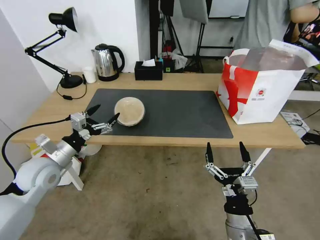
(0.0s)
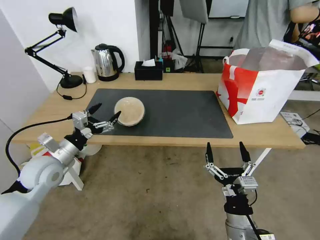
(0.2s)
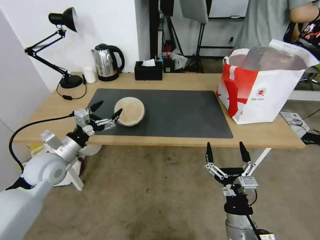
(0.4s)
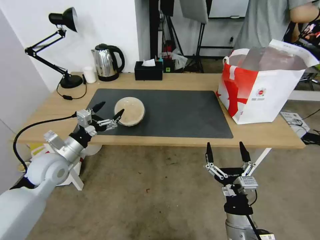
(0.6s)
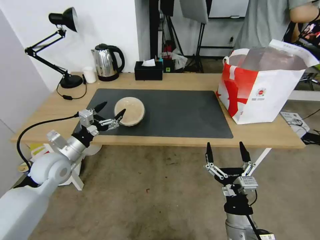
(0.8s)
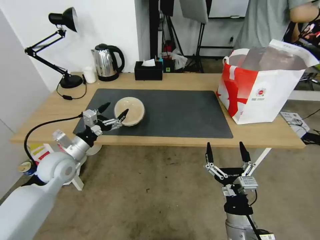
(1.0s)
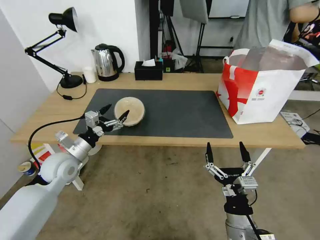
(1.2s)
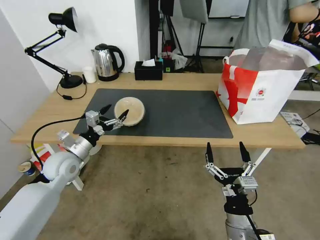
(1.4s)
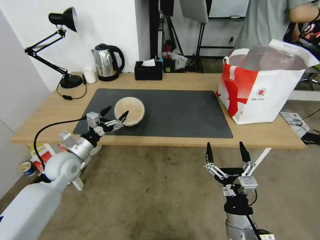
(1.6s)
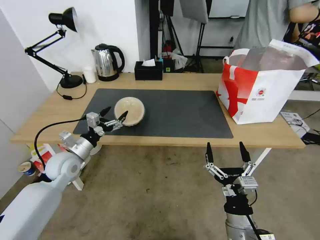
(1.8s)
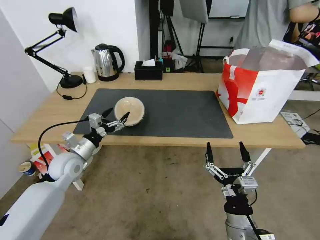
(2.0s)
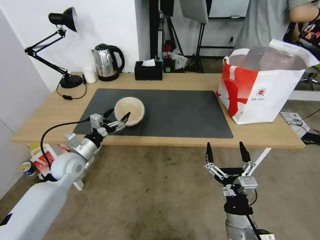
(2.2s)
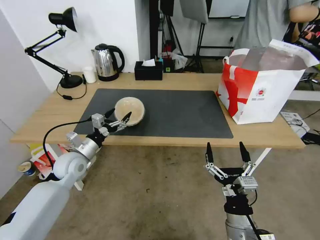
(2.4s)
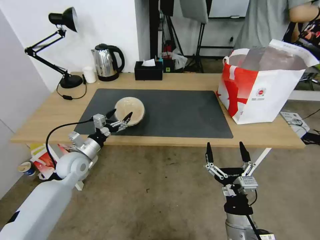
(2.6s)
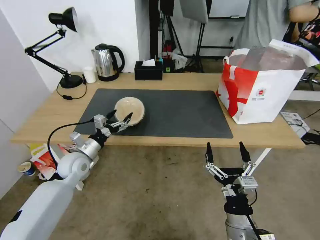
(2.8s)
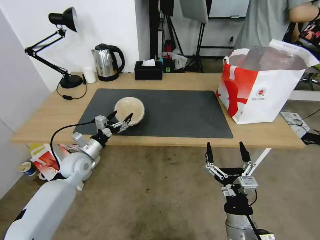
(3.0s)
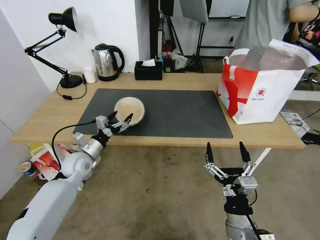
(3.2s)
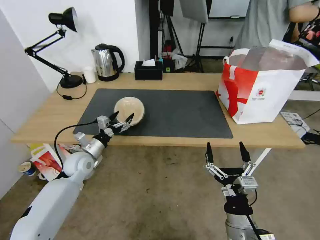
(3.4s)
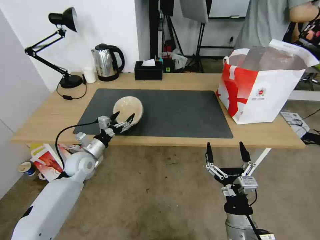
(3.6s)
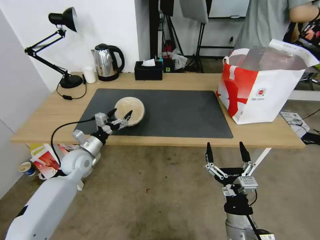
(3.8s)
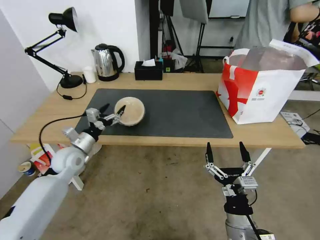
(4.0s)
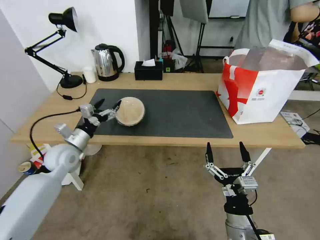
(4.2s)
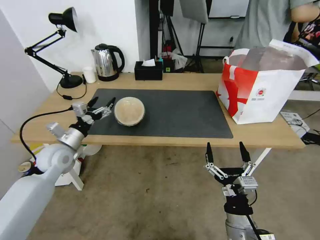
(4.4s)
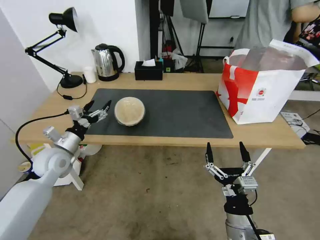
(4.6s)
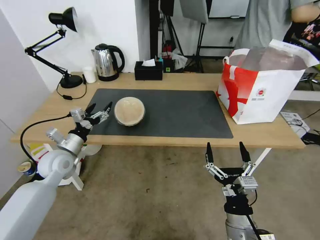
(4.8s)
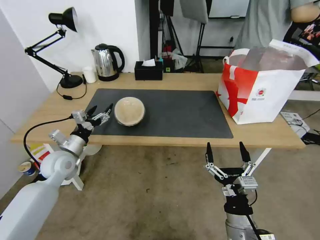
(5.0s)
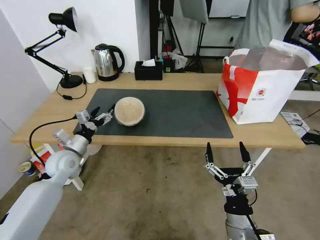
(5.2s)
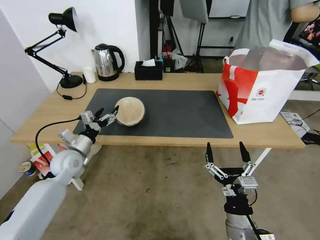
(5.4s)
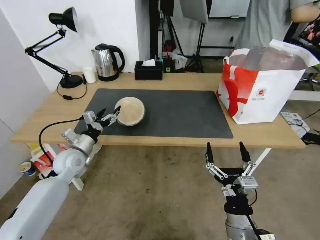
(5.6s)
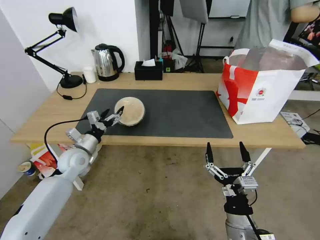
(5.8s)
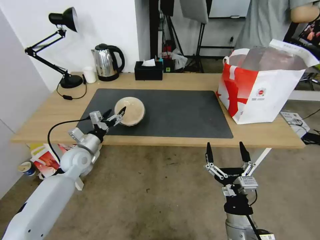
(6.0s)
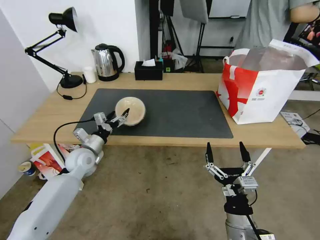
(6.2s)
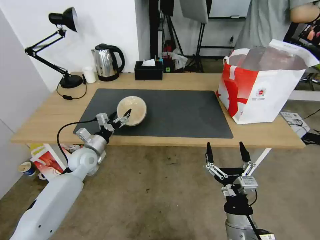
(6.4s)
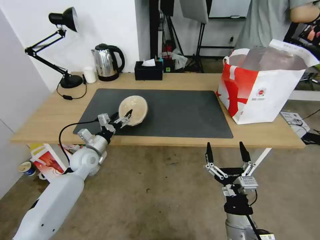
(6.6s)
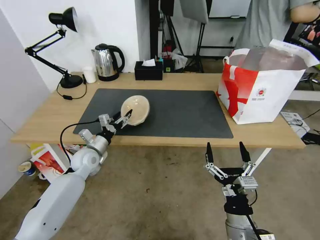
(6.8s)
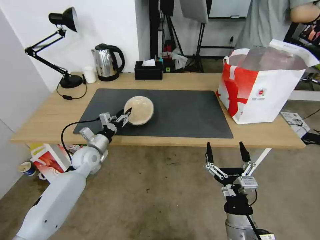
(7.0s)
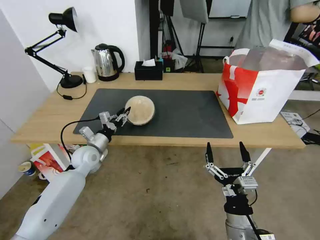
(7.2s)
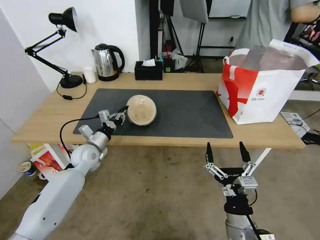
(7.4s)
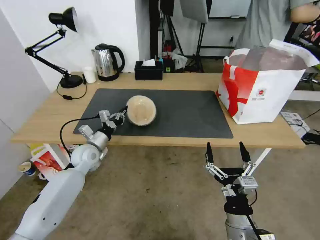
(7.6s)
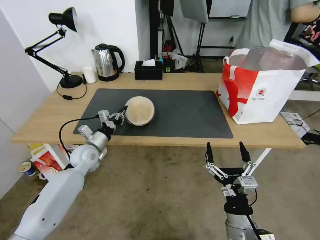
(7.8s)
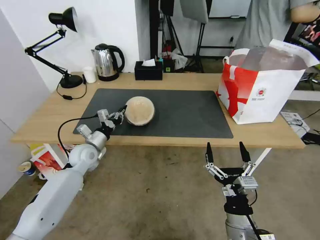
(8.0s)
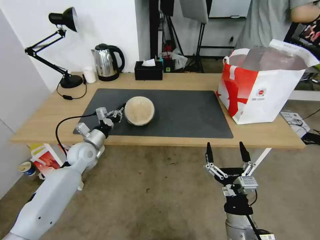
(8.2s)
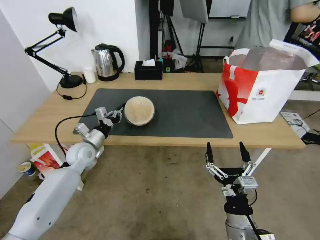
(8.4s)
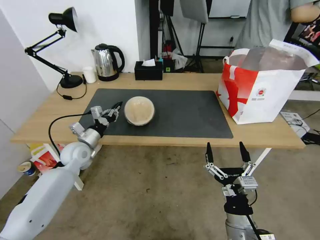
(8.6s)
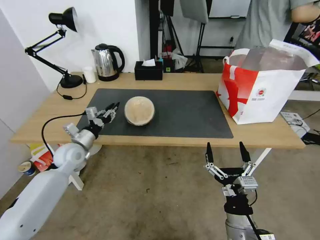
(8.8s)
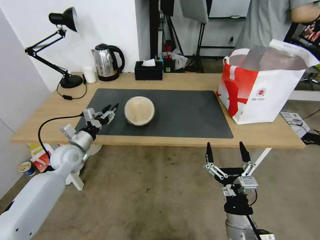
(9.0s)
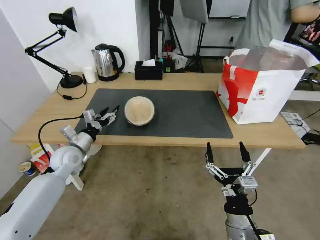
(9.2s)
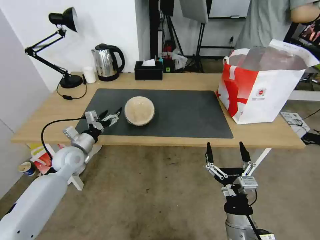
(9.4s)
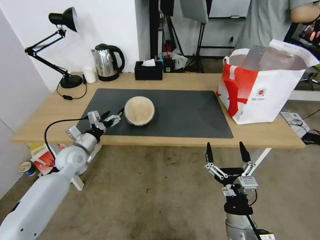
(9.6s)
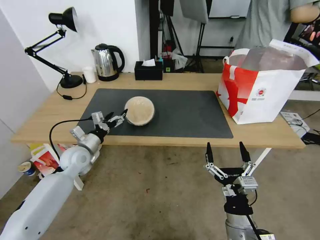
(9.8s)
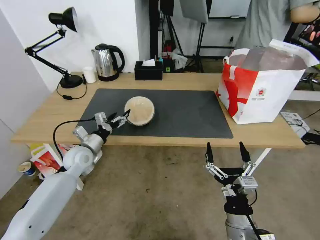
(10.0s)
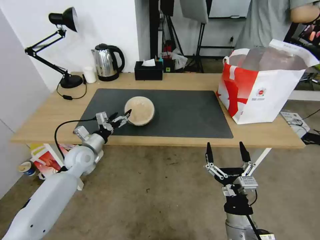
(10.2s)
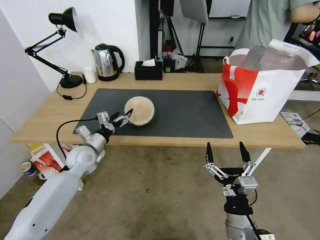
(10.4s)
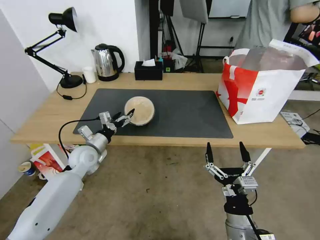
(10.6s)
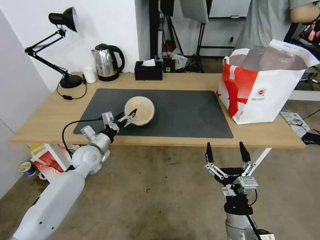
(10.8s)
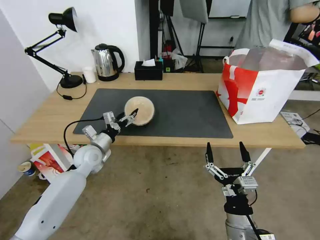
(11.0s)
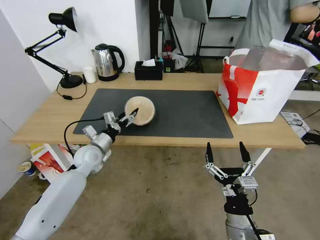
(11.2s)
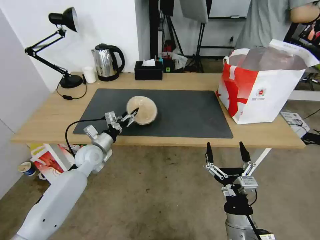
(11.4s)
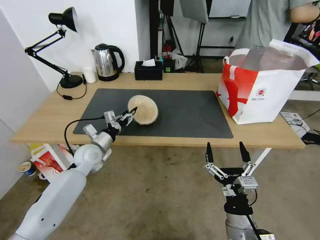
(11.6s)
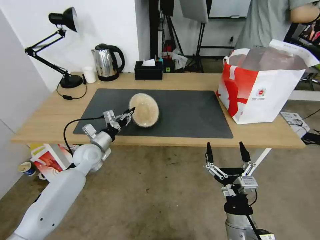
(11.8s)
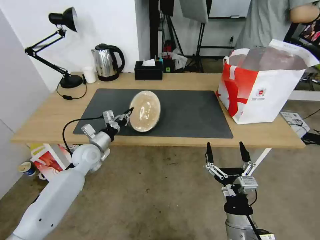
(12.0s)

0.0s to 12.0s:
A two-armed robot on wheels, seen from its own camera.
Task of the whole recording: Pick up the trash from the table and place it into the takeout bag.
0.0s to 1.6s: The left gripper changes place by some 5 cm.
1.6s to 3.0s: The left gripper moves some 5 cm.
3.0s to 4.4s: The left gripper heads upward, covering approximately 5 cm.
4.4s to 6.0s: The left gripper heads downward, covering about 5 cm.
6.0s to 7.6s: The left gripper closes.
7.6s to 9.0s: The left gripper moves about 5 cm, and opens its fingers.
9.0s to 10.4s: The left gripper opens its fingers.
10.4s to 12.0s: The left gripper closes.

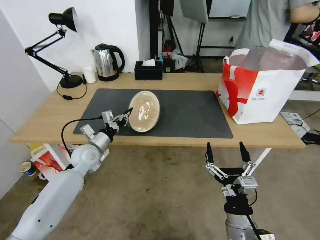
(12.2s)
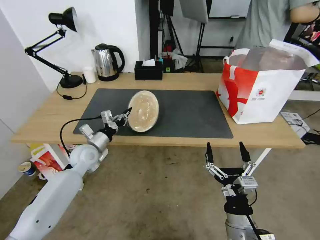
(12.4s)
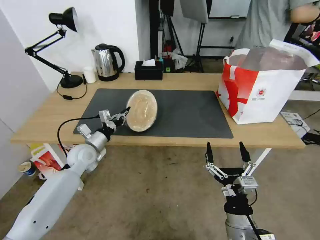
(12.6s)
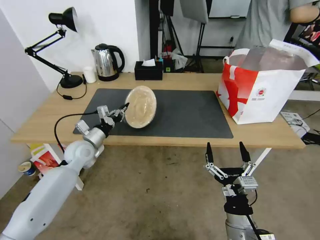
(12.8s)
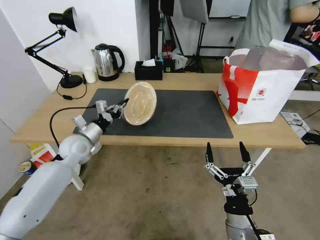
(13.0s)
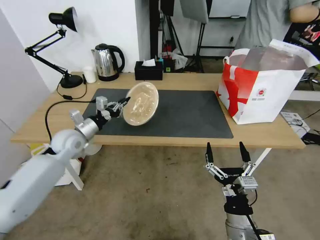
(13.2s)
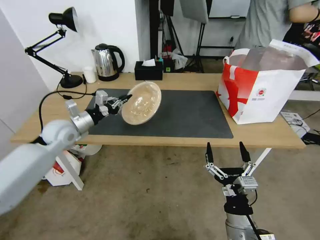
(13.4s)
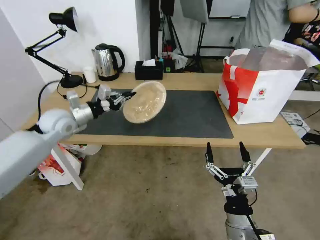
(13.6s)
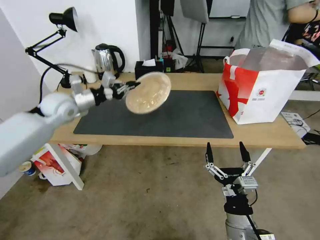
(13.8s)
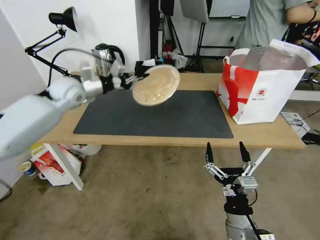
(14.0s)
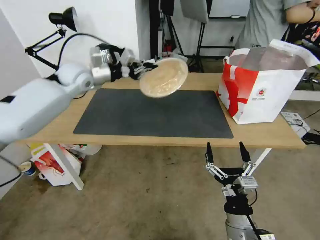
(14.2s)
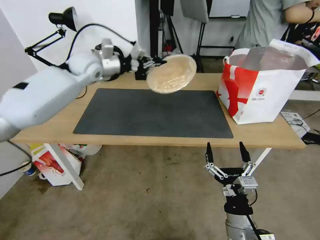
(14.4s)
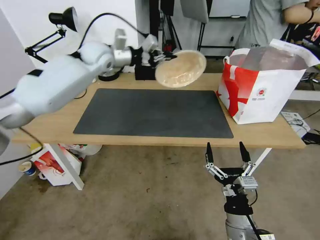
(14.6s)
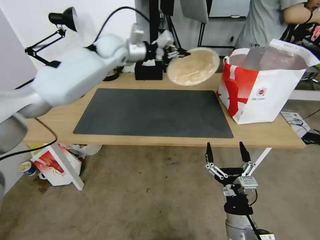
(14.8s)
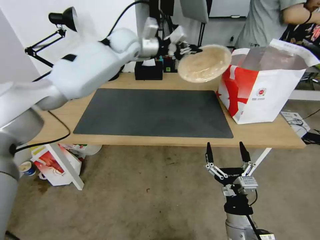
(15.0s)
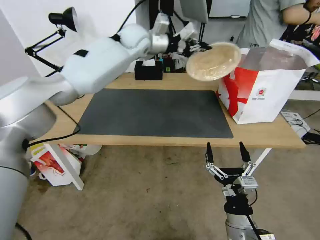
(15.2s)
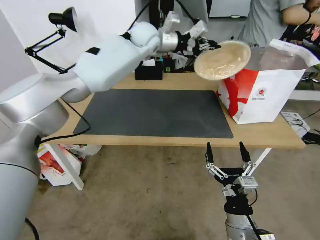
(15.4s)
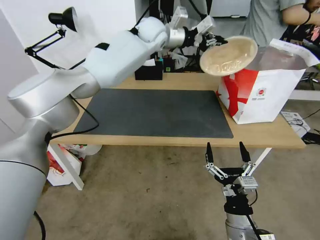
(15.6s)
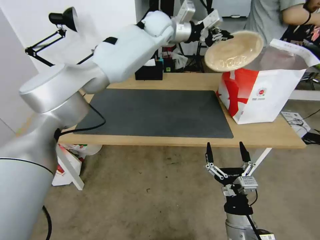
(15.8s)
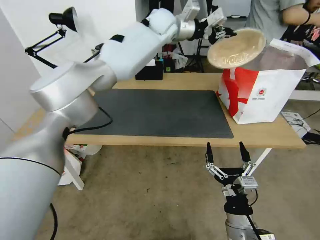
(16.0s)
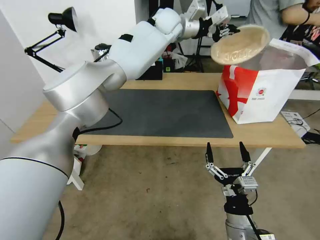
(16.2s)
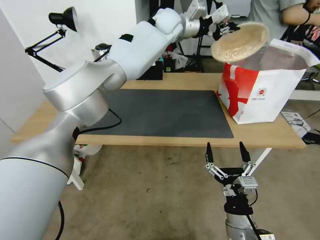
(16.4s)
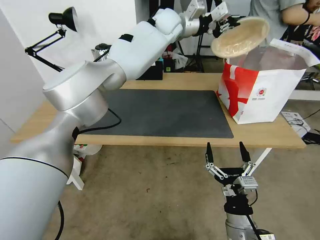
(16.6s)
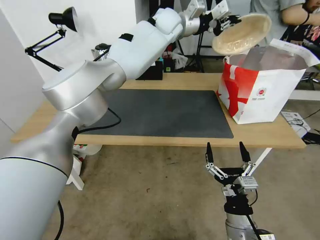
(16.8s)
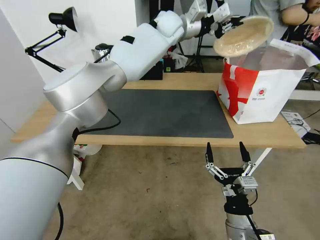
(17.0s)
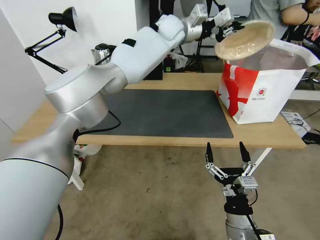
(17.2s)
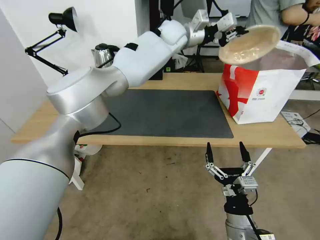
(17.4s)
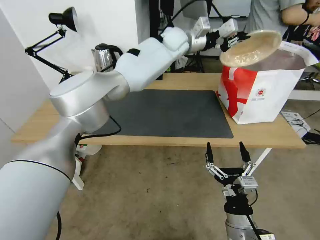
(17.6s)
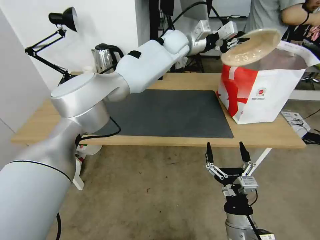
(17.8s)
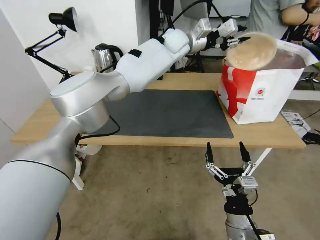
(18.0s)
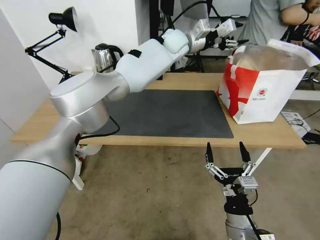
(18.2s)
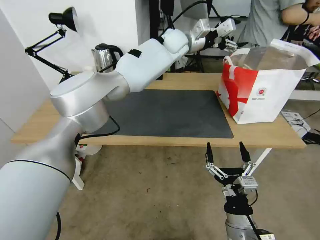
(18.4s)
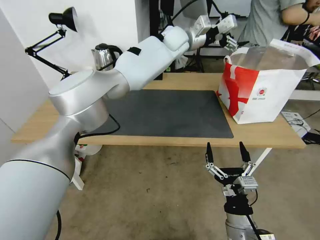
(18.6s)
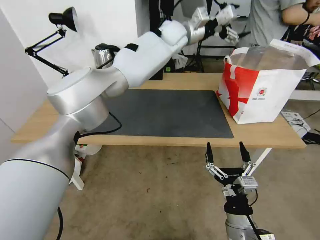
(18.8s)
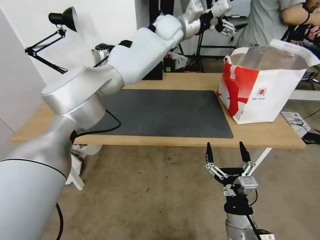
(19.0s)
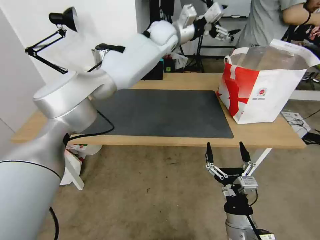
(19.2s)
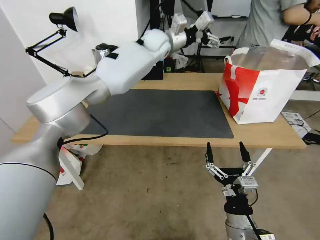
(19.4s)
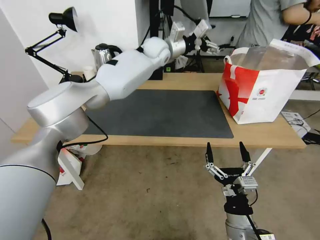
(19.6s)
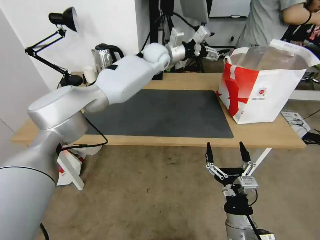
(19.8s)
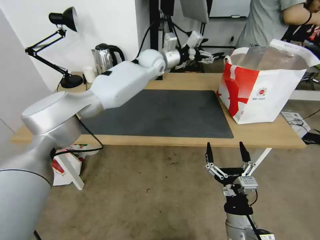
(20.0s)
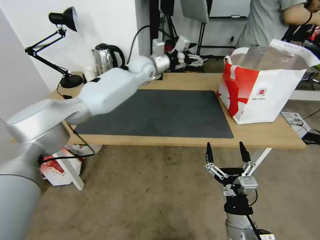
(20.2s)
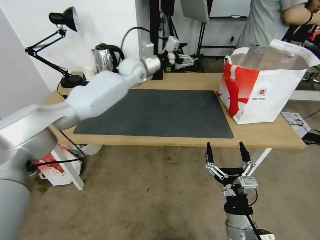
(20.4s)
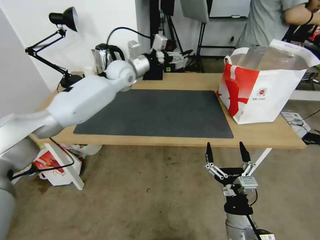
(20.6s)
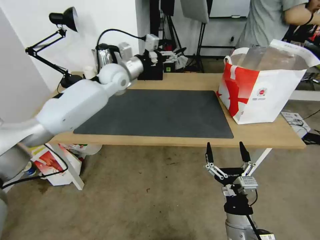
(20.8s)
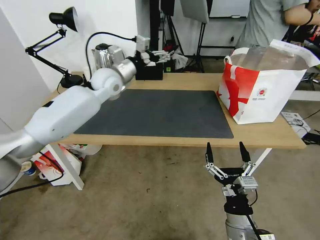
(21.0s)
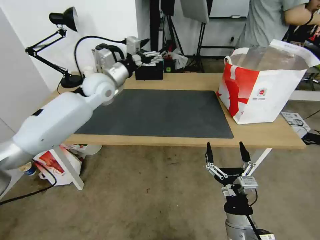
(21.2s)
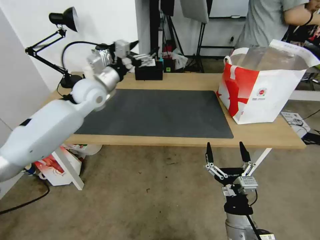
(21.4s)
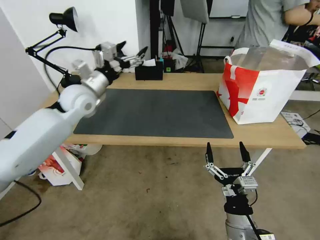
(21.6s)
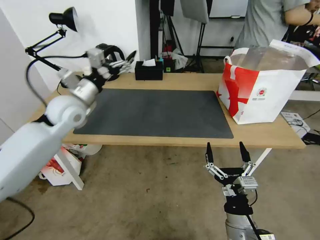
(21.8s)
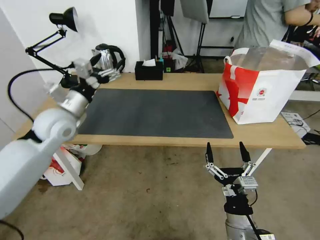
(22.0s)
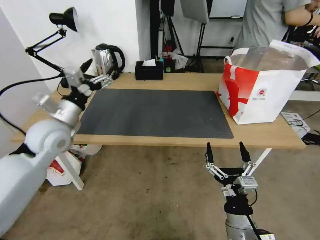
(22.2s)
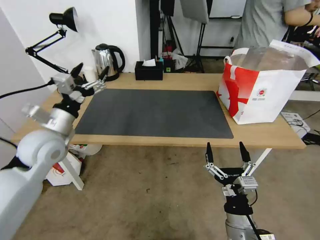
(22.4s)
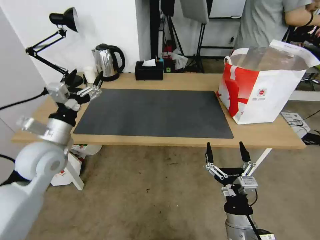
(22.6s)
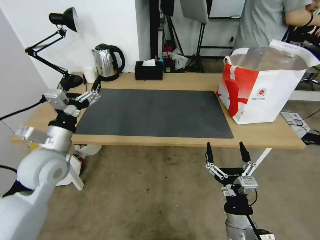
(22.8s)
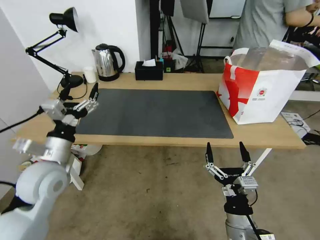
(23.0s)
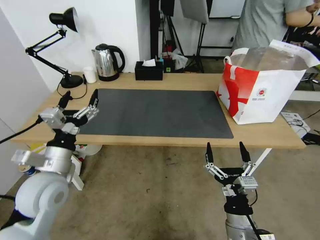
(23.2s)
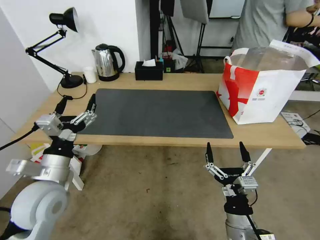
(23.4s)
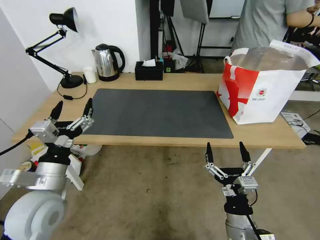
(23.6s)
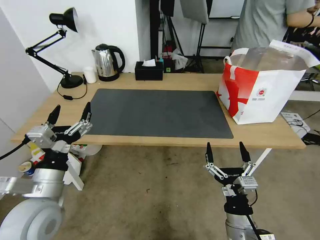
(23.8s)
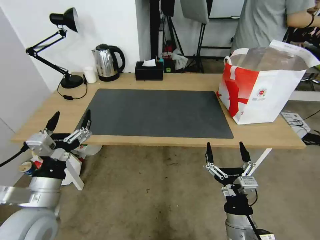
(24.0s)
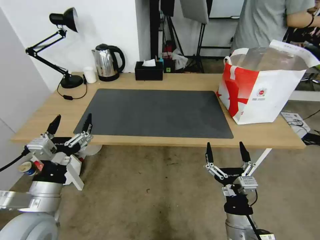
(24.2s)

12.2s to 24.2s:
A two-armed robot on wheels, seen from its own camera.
Task of the whole recording: Pick up the trash from the table and place it into the takeout bag.
12.2s to 13.8s: The left gripper shifts some 20 cm upward.
13.8s to 15.2s: The left gripper shifts approximately 35 cm to the right, upward and forward.
15.2s to 16.6s: The left gripper goes some 10 cm to the right.
16.6s to 18.2s: The left gripper shifts approximately 5 cm downward, and opens.
18.2s to 19.8s: The left gripper moves to the left, about 5 cm, and opens its fingers.
19.8s to 21.2s: The left gripper travels to the left and backward by approximately 20 cm.
21.2s to 22.6s: The left gripper moves backward and to the left, about 25 cm.
22.6s to 24.2s: The left gripper heads backward, covering some 15 cm.
